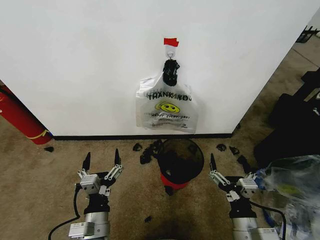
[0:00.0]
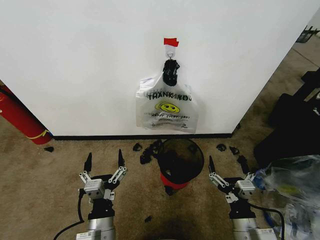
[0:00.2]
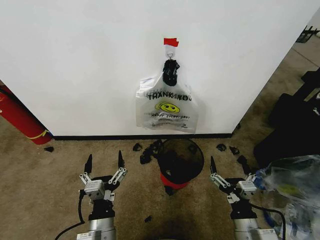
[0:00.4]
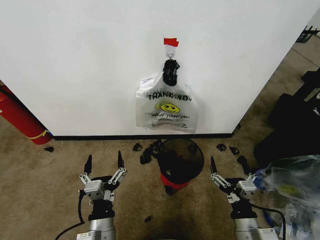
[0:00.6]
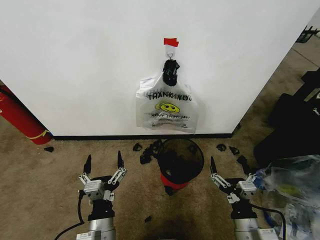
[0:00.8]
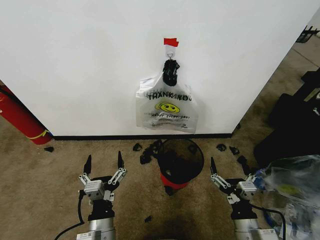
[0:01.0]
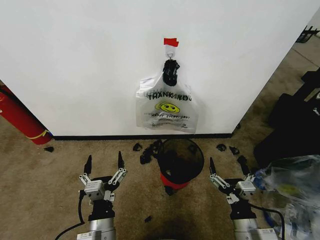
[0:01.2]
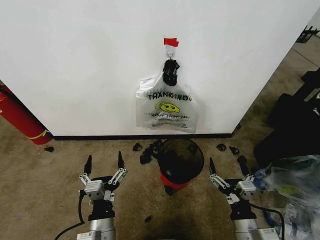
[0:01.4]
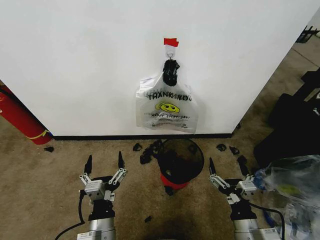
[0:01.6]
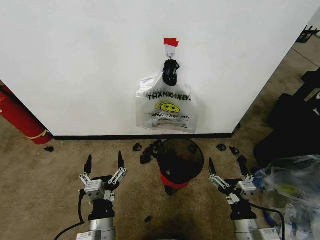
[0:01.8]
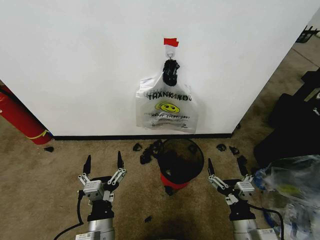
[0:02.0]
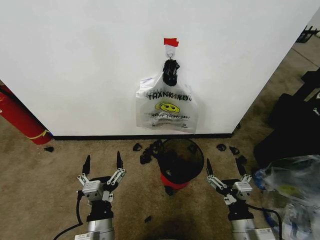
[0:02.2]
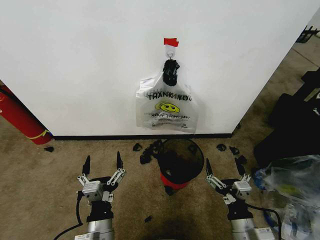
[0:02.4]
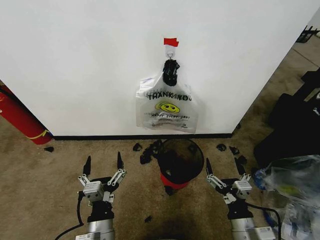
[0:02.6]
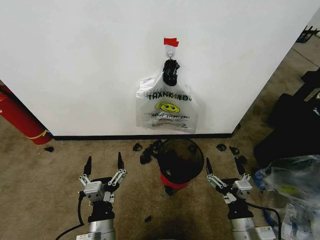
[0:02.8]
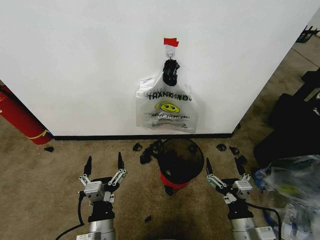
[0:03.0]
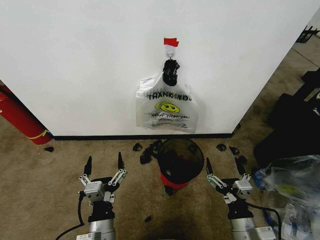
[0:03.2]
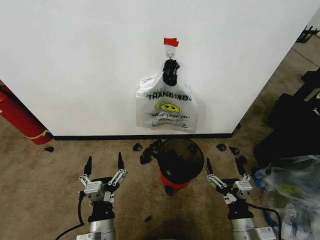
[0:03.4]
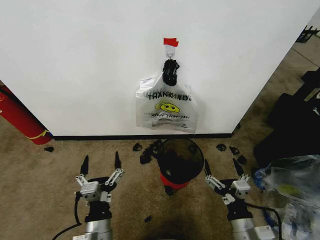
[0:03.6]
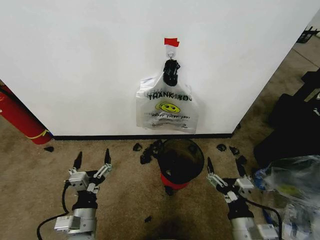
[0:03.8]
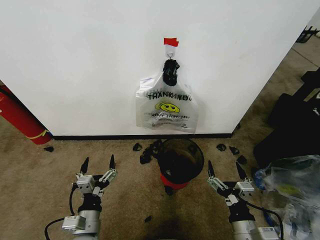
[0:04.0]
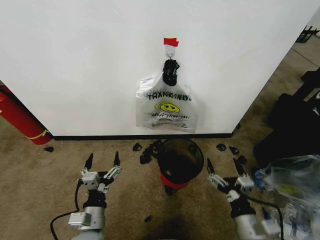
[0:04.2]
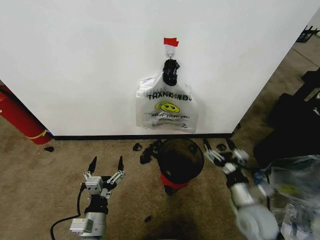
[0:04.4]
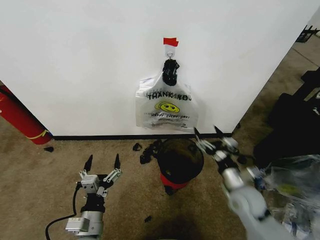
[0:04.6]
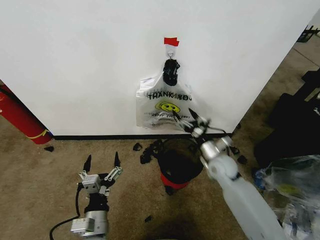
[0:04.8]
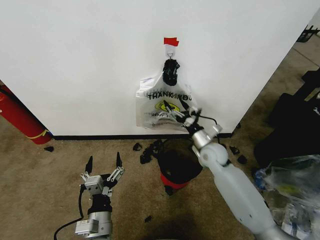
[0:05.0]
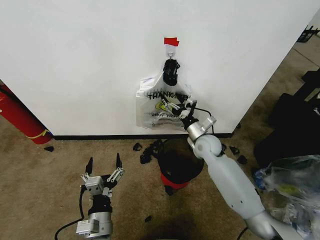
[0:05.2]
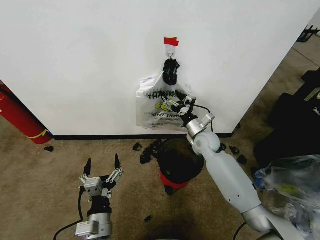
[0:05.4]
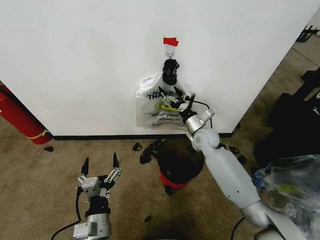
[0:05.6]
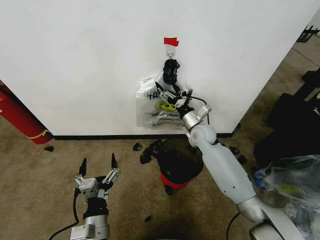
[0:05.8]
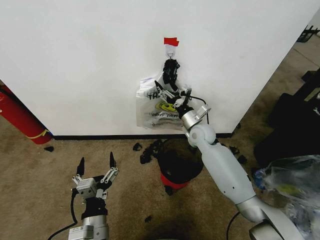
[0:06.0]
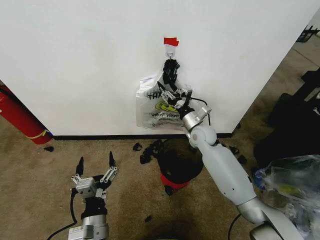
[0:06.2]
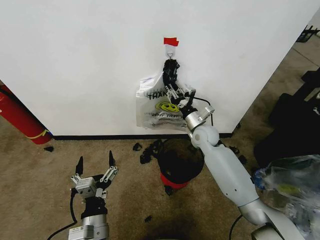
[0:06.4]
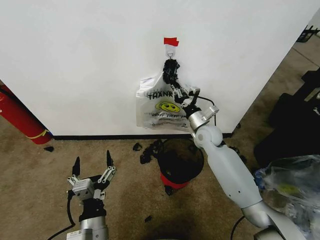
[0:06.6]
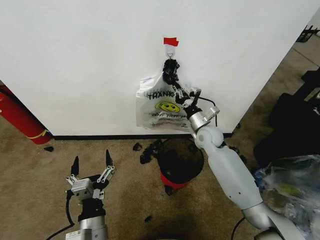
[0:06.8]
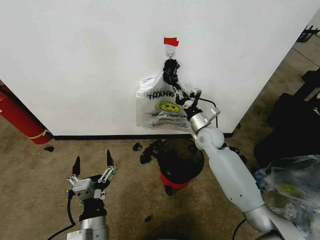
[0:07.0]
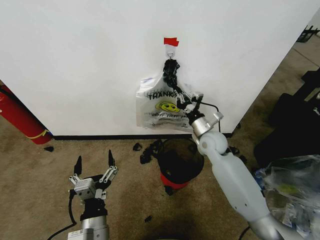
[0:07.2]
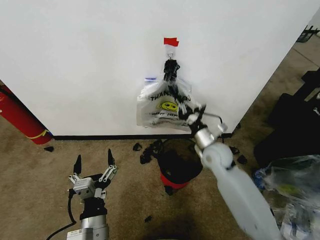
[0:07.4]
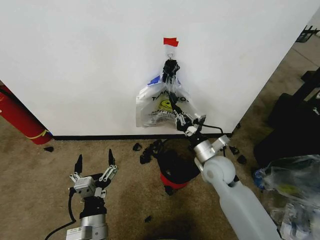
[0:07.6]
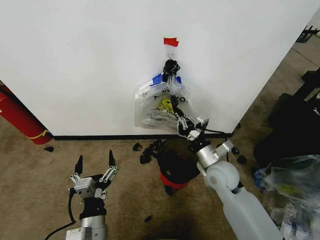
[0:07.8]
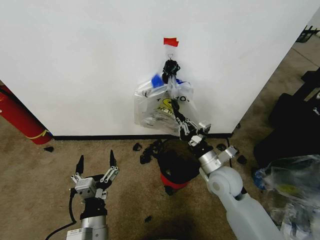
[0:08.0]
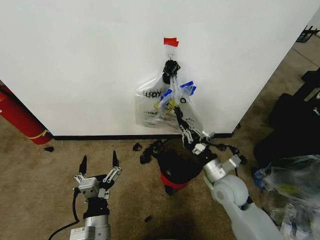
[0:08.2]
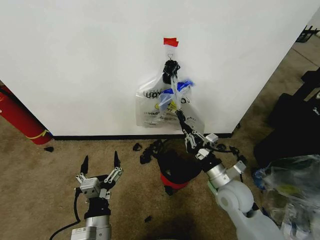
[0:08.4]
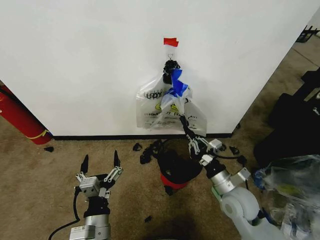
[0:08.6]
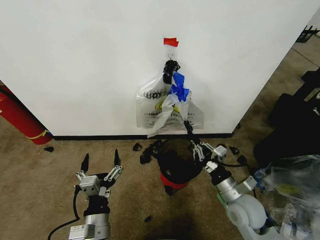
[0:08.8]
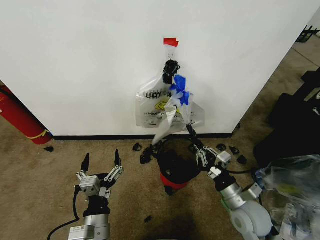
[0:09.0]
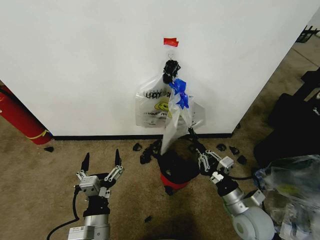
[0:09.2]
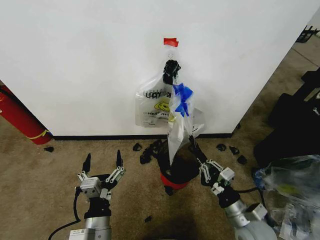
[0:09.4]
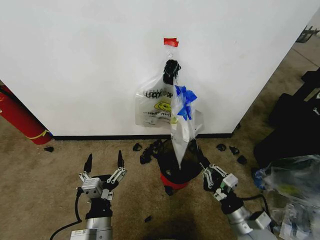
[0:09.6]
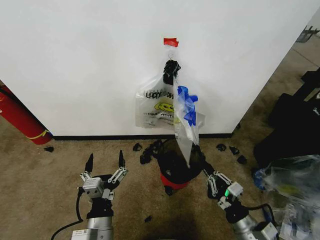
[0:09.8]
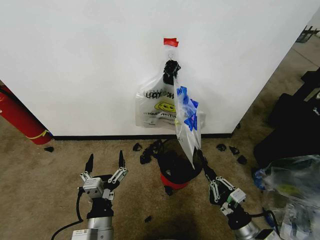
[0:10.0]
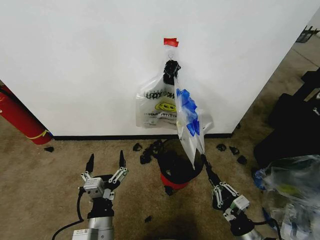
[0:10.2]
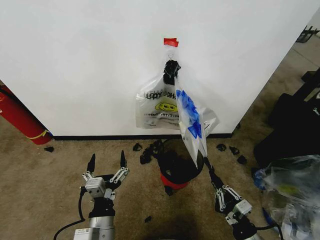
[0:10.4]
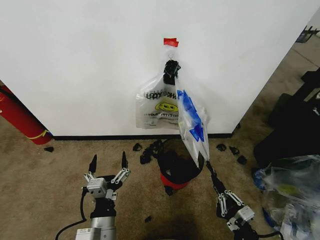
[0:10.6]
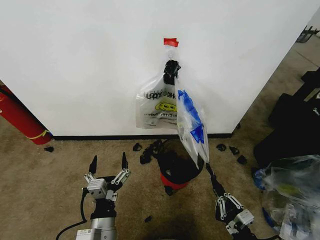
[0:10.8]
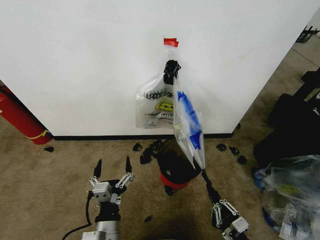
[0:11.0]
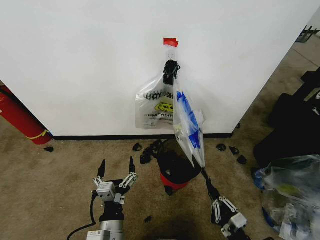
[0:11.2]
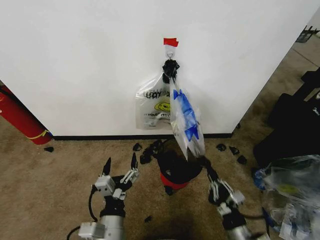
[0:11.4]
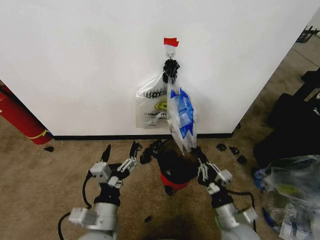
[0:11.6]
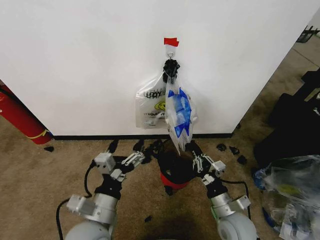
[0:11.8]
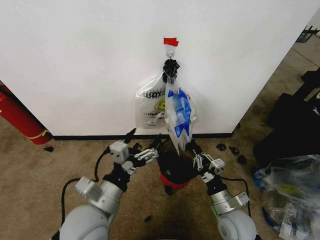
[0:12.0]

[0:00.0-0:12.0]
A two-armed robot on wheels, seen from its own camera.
Task of the whole recording: Pick up the garbage bag from the wall and place it over the trash bin.
0:01.6 to 0:03.0: Both grippers stay put.
0:03.0 to 0:04.4: The right gripper shifts approximately 10 cm forward, while the left gripper shifts by approximately 5 cm.
0:04.4 to 0:06.0: The right gripper moves forward, roughly 30 cm.
0:06.0 to 0:07.6: The right gripper is displaced backward by some 15 cm, and closes up.
0:07.6 to 0:09.0: The right gripper is displaced backward and to the right by roughly 15 cm.
0:09.0 to 0:10.4: The right gripper travels backward and downward by approximately 15 cm.
0:10.4 to 0:12.0: The left gripper goes approximately 10 cm upward and forward. The right gripper heads forward and to the left, covering approximately 10 cm.

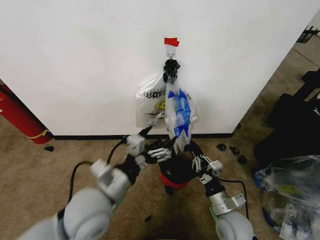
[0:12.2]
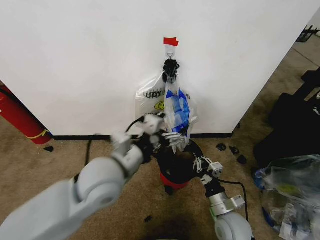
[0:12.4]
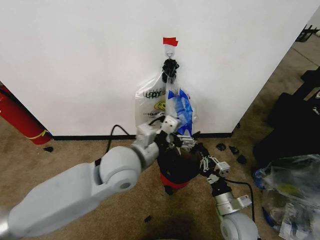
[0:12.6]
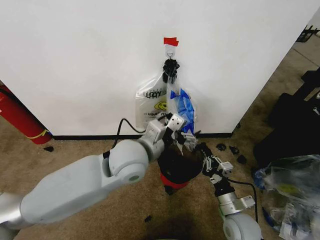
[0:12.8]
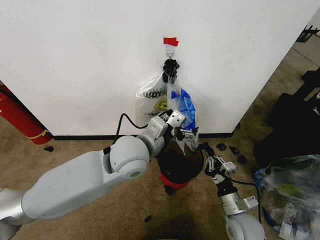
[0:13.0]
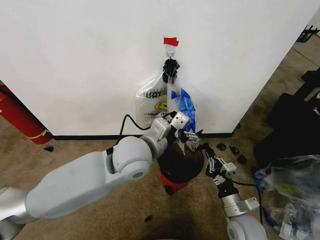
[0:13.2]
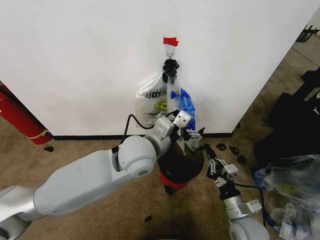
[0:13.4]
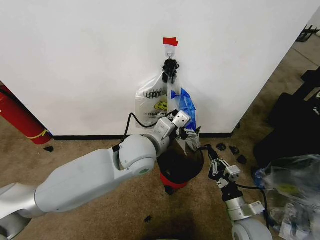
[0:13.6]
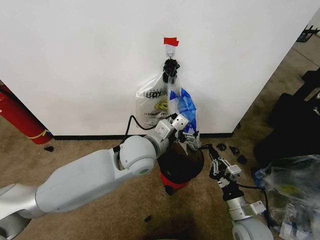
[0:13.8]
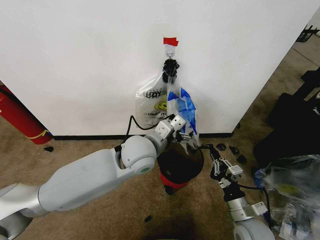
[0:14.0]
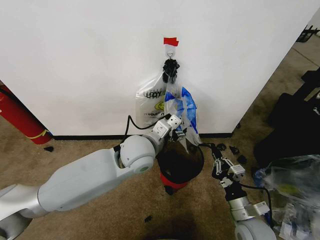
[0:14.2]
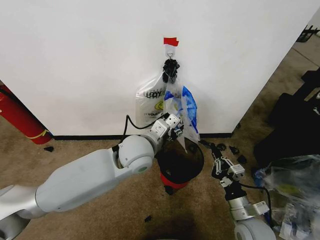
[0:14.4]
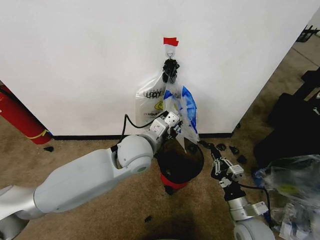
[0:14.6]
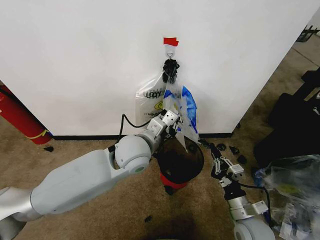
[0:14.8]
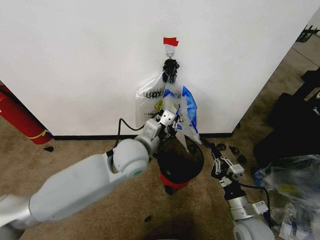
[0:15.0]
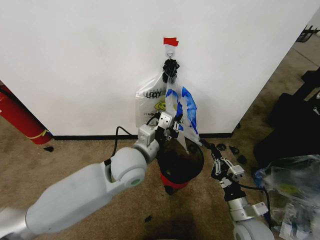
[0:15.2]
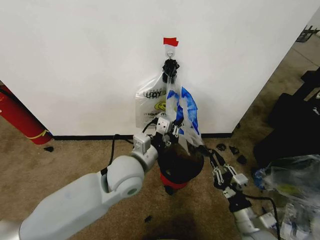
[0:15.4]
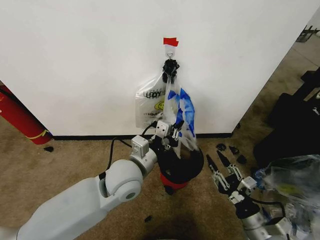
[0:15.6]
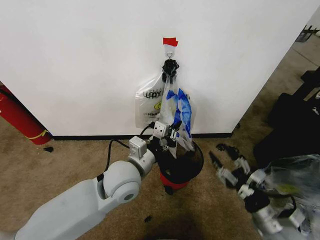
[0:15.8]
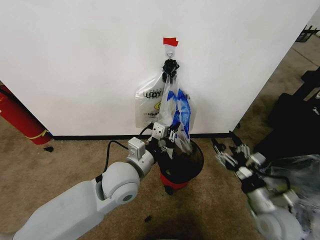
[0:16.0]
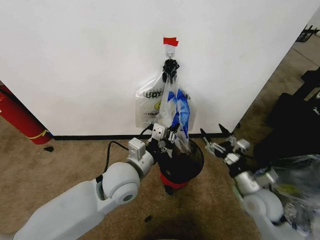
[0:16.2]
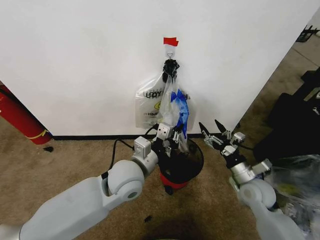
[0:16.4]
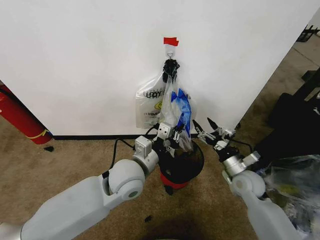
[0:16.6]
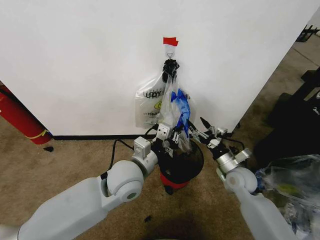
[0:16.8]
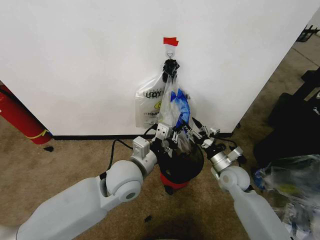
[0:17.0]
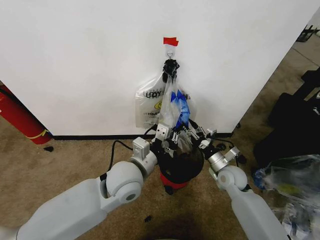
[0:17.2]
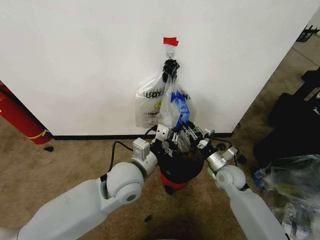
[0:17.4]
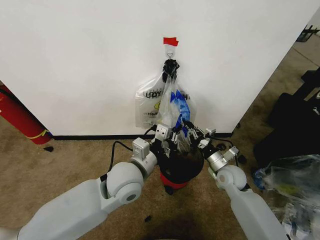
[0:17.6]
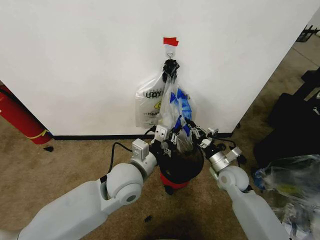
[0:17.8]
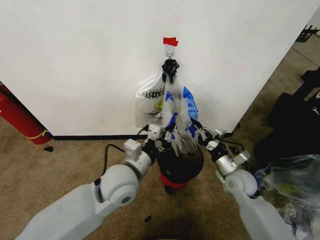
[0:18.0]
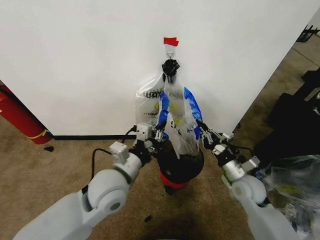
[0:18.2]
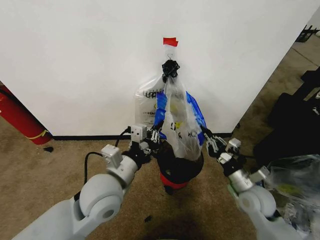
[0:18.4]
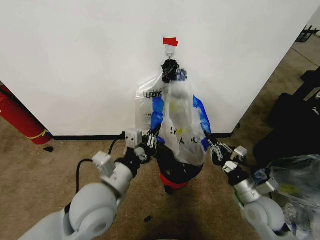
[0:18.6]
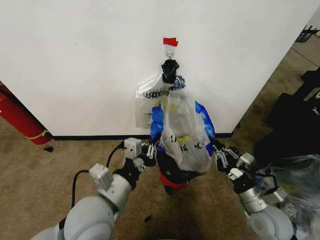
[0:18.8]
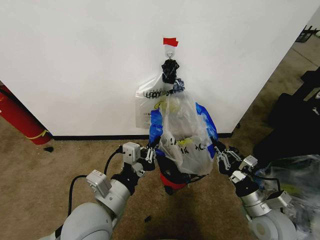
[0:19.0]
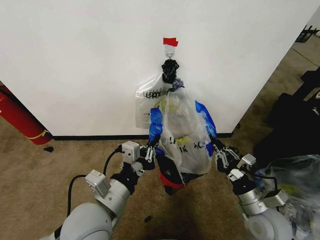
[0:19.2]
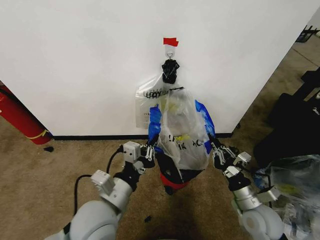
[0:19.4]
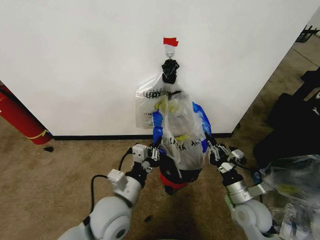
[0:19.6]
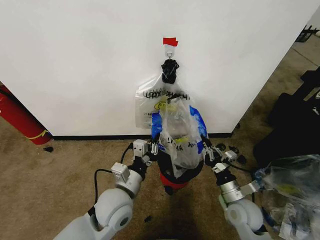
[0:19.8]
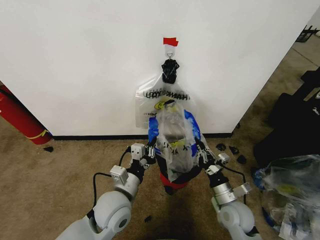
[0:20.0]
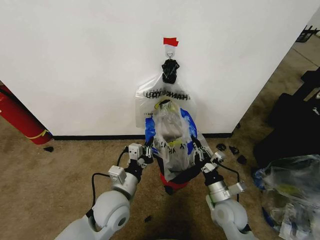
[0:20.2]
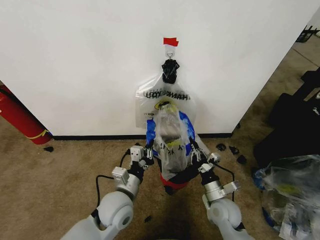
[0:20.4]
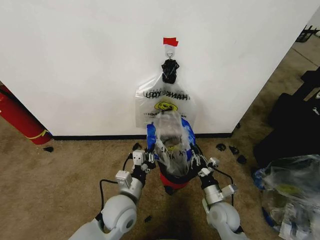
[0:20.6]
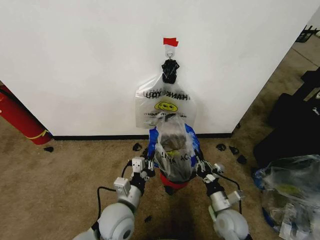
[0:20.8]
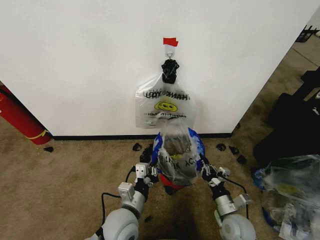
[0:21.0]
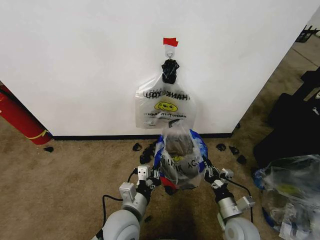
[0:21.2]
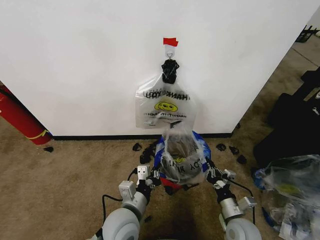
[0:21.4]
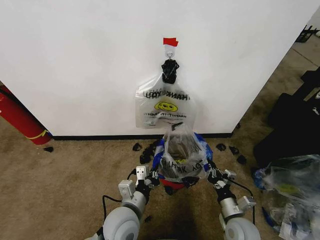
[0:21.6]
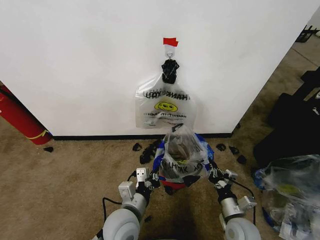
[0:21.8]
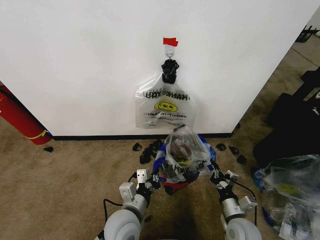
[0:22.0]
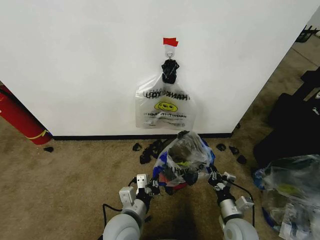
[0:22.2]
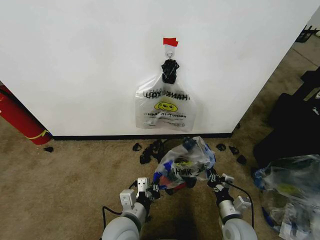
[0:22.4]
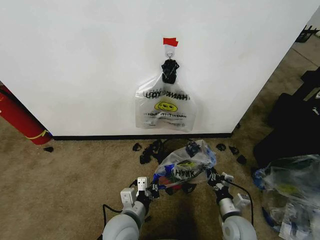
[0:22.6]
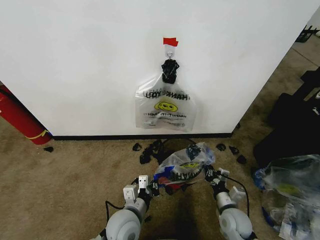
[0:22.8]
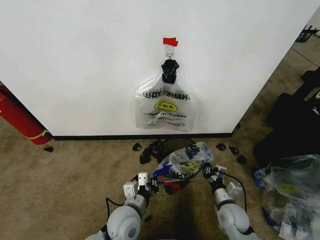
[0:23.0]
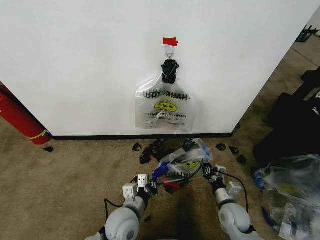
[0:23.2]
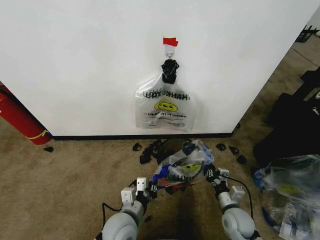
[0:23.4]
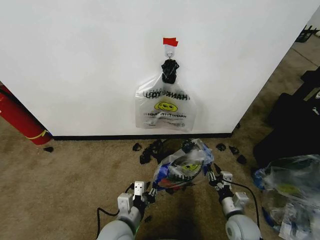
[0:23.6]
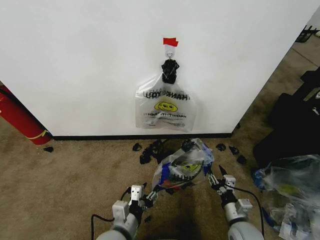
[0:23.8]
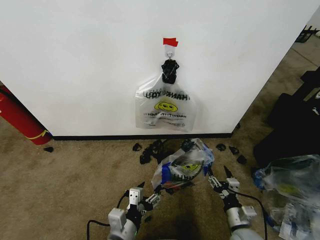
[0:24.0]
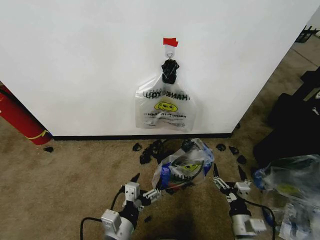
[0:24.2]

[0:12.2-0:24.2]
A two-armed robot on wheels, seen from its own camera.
Task of the whole recording: Pick up the garbage bag from the wall and place it over the trash bin.
0:12.2 to 0:13.8: The left gripper shifts roughly 15 cm forward and to the right.
0:13.8 to 0:15.2: The left gripper closes up.
0:15.2 to 0:16.6: The right gripper travels forward by about 15 cm, and opens up.
0:16.6 to 0:18.2: The left gripper ends up about 5 cm from where it was; the right gripper closes up.
0:18.2 to 0:19.8: The left gripper moves downward, about 5 cm, and reaches some 10 cm backward, then returns. The right gripper is displaced backward by about 5 cm.
0:19.8 to 0:21.2: The left gripper goes roughly 5 cm downward, while the right gripper shifts by about 5 cm.
0:21.2 to 0:22.6: The grippers make only small movements.
0:22.6 to 0:24.2: The two grippers go about 5 cm backward. The left gripper opens its fingers. The right gripper opens its fingers.
